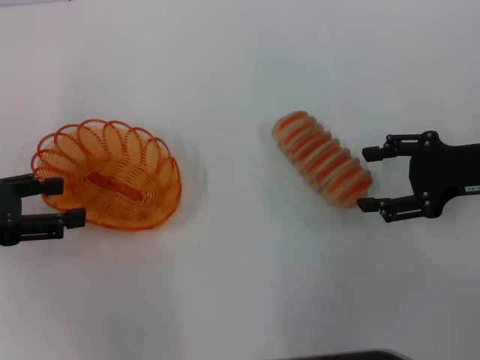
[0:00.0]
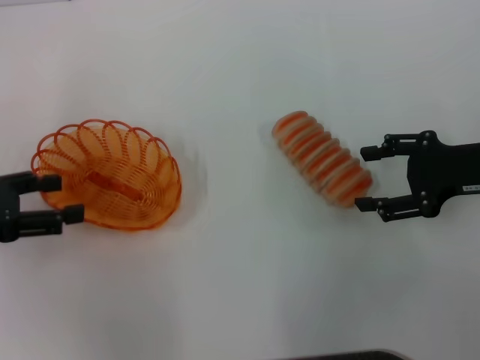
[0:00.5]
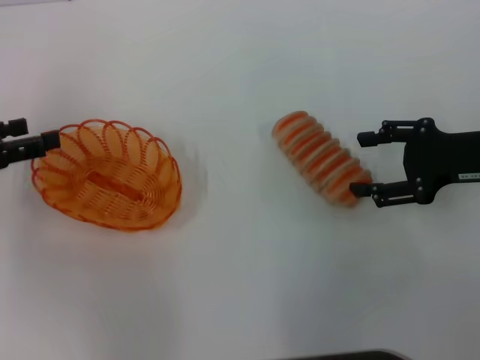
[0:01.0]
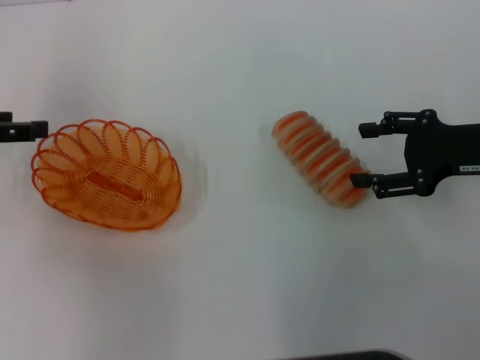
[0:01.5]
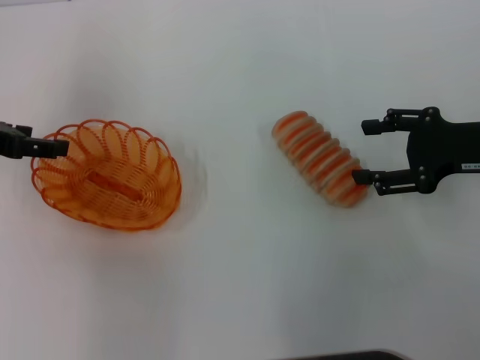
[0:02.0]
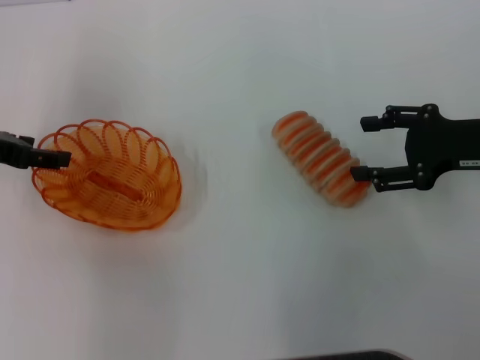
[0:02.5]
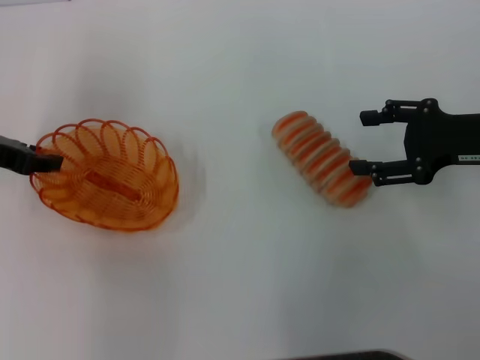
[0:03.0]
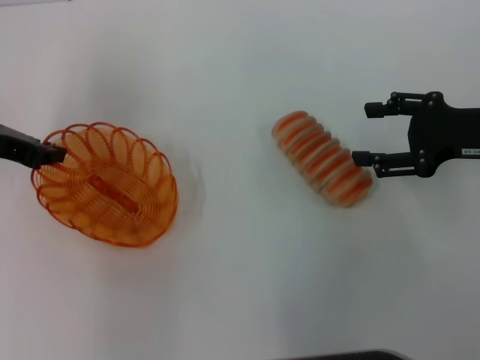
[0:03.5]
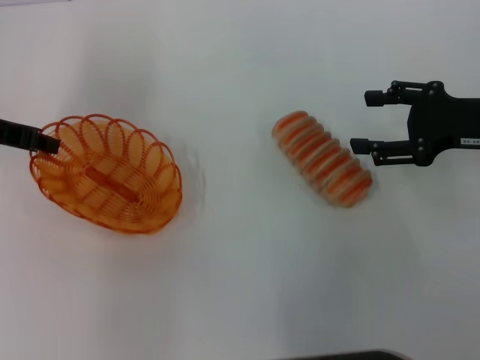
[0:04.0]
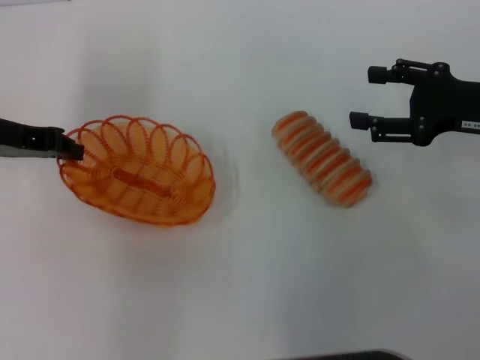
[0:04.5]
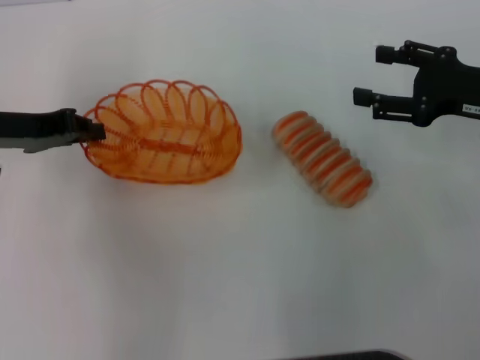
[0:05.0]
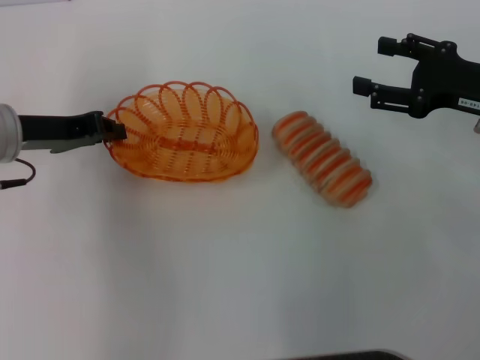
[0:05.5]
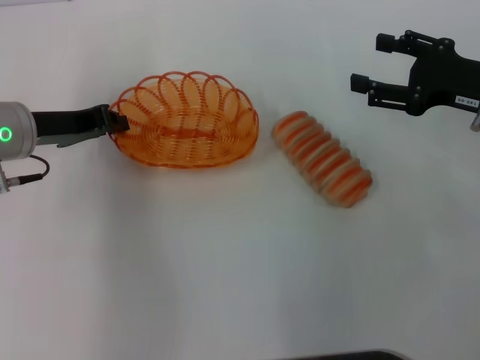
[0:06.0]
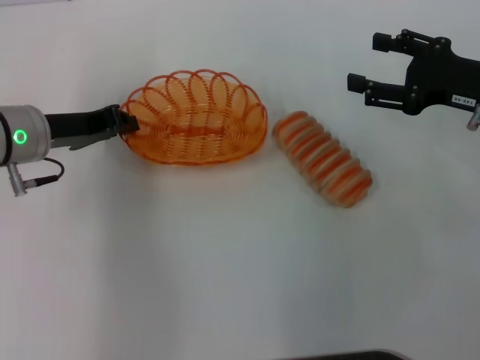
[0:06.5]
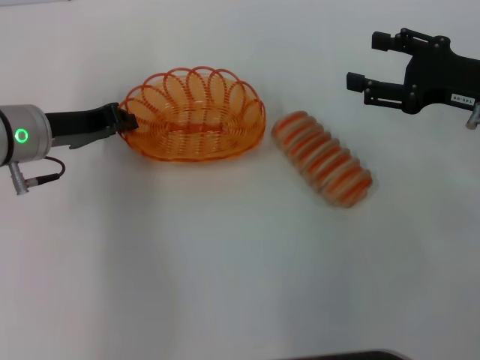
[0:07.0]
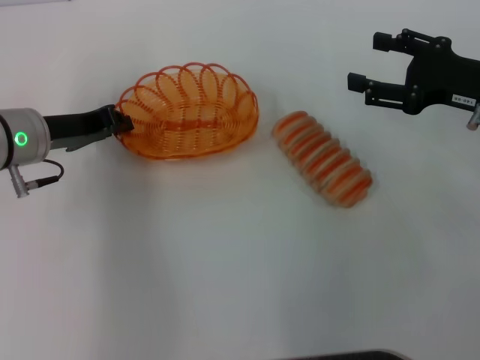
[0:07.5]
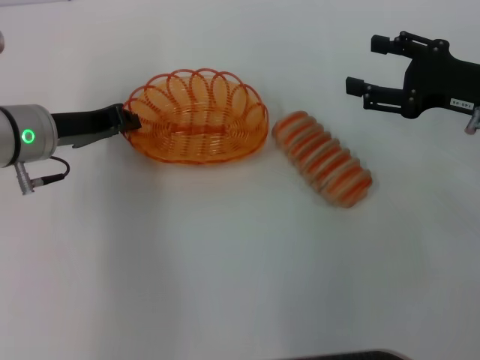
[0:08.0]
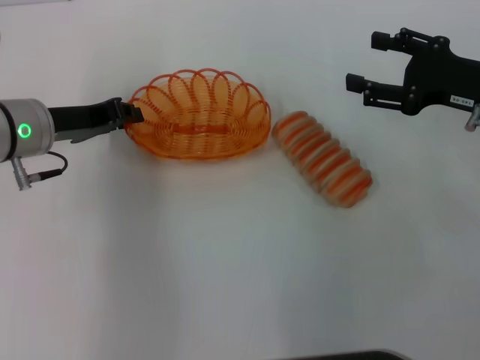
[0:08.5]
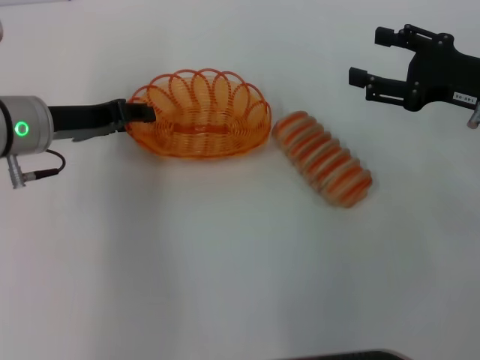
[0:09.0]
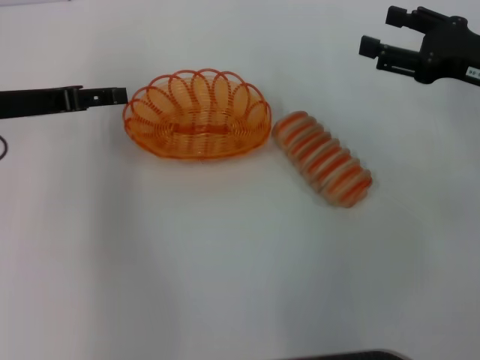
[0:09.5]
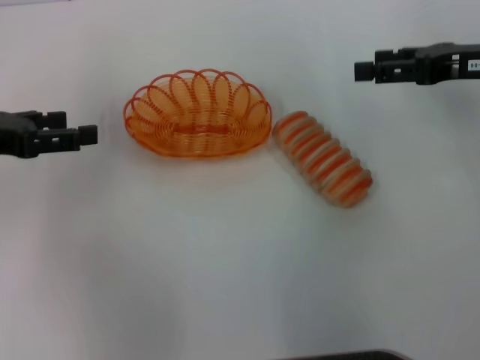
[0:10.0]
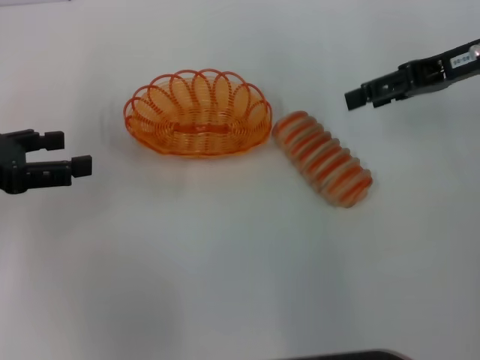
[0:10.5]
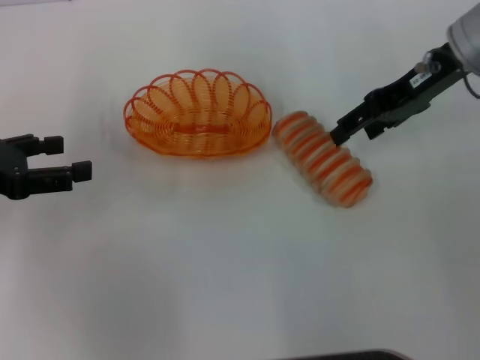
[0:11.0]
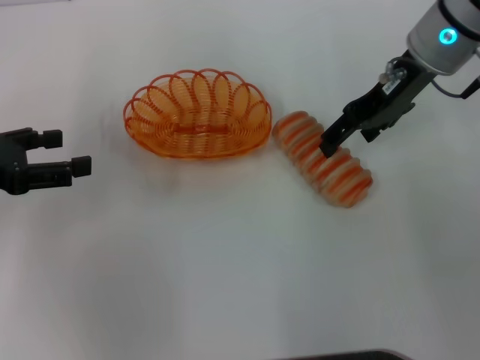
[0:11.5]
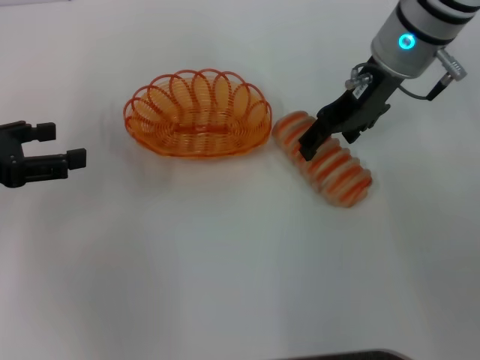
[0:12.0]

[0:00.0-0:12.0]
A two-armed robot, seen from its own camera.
Step, 0:00.0 to 0:03.5: Pick up the basket with the left gripper.
Step, 0:04.0 to 0:09.0: Place the basket in the center of view with the left gripper.
0:00.0 to 0:02.0: The left gripper goes approximately 10 cm forward.
0:02.0 to 0:04.0: The left gripper closes.
0:04.0 to 0:06.0: The left gripper travels to the right by about 5 cm.
0:06.0 to 0:08.0: The grippers move only a little.
0:08.0 to 0:10.0: The right gripper changes place by roughly 5 cm, while the left gripper heads to the left and upward, covering approximately 10 cm, and opens its fingers.
0:10.0 to 0:12.0: The right gripper shifts some 15 cm to the left and forward.

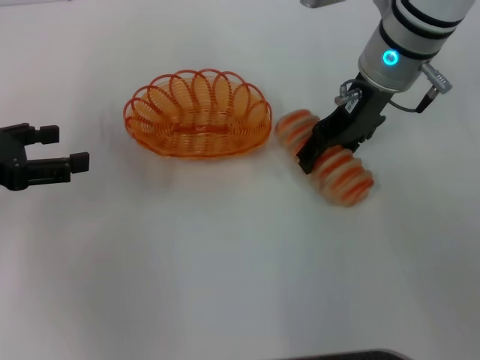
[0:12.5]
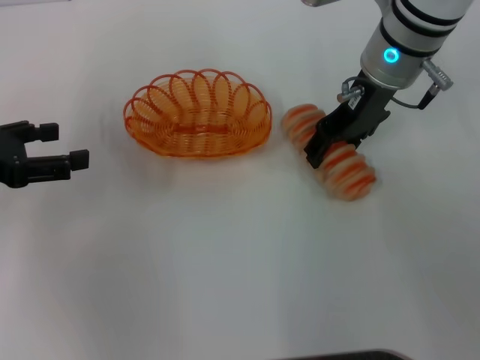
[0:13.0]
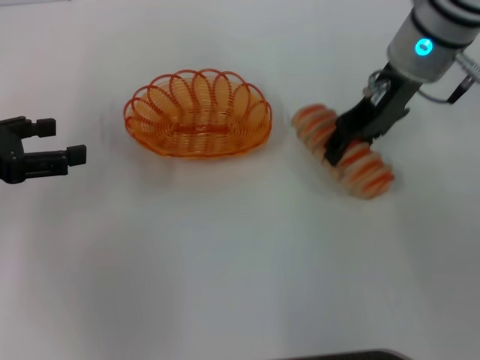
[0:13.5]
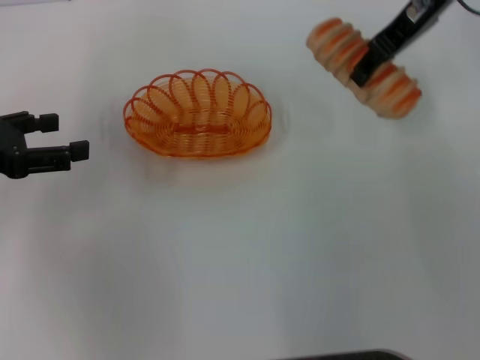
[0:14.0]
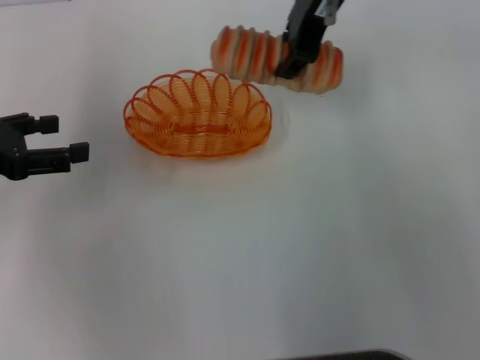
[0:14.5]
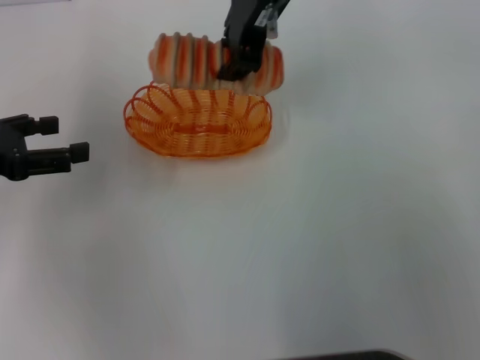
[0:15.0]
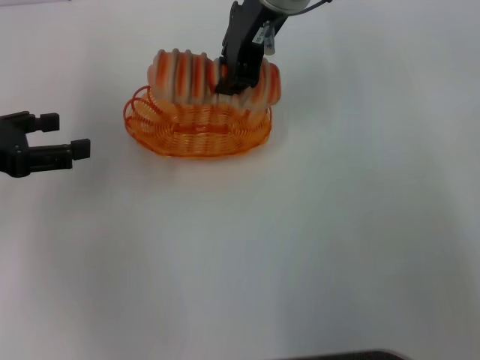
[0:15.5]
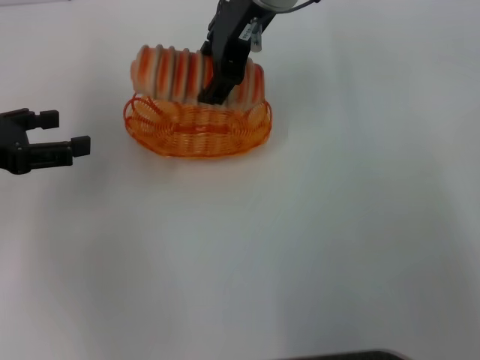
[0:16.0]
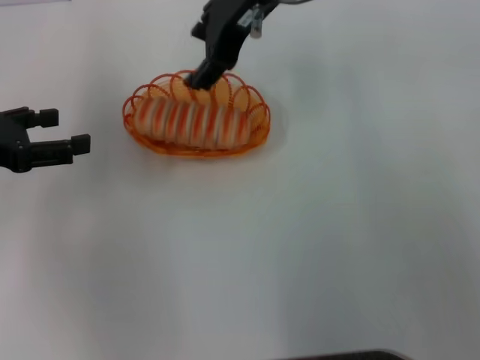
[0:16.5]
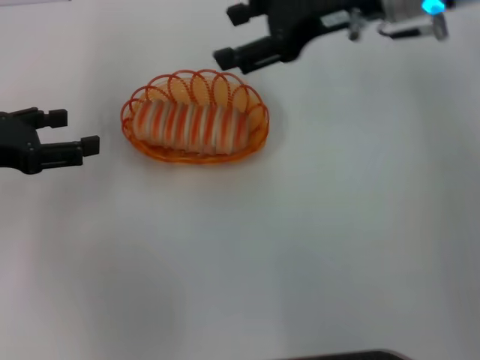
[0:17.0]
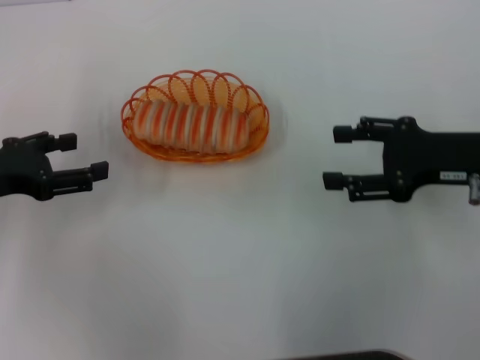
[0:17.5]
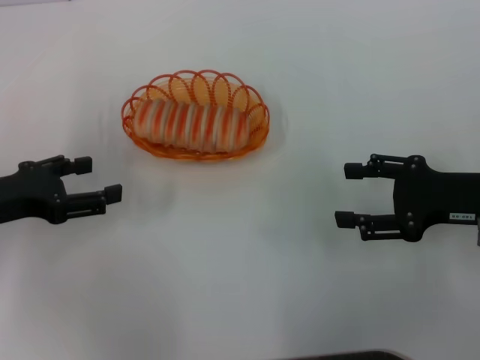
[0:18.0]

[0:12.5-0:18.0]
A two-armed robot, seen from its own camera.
Step, 0:14.0 to 0:16.0: Place the long bread into the basket with the right gripper.
0:12.5 to 0:14.5: The right gripper goes about 10 cm upward and to the left, and closes up.
0:14.5 to 0:16.0: The right gripper heads to the left, covering some 5 cm.
0:16.0 to 0:18.0: The right gripper moves to the right, backward and downward, approximately 35 cm. The left gripper is displaced downward by approximately 5 cm.

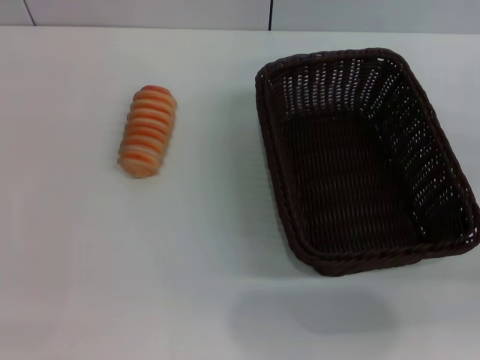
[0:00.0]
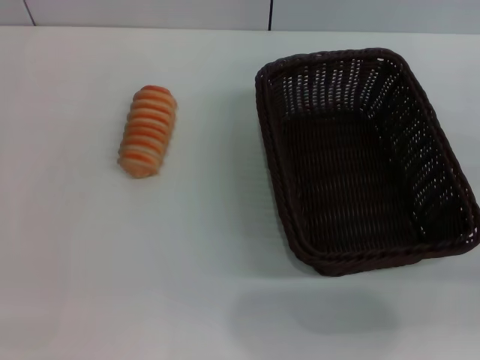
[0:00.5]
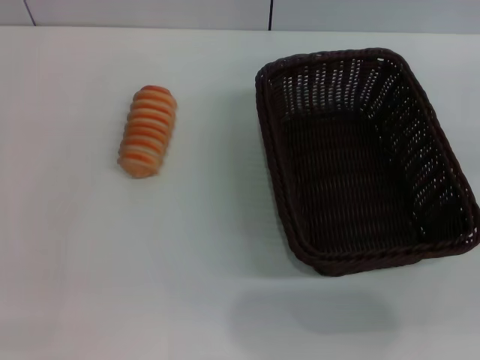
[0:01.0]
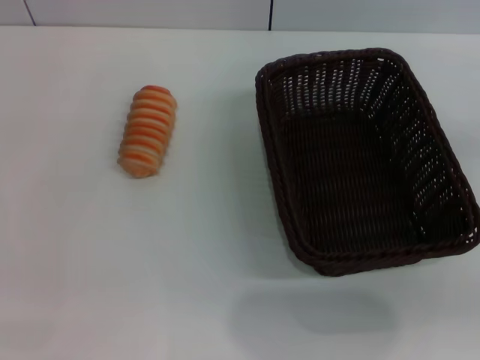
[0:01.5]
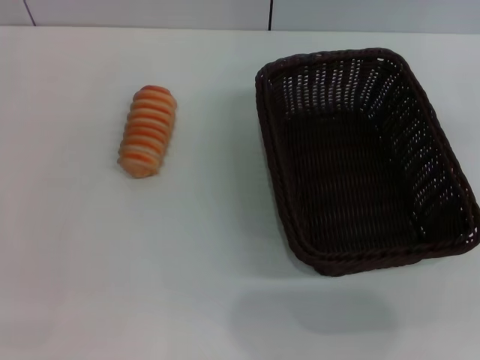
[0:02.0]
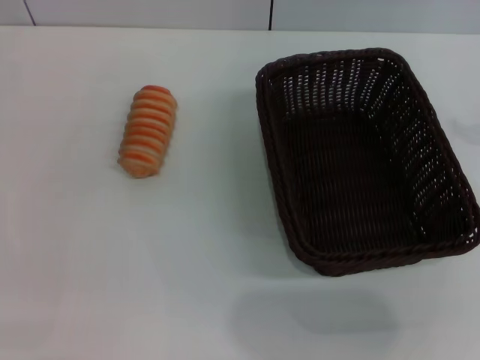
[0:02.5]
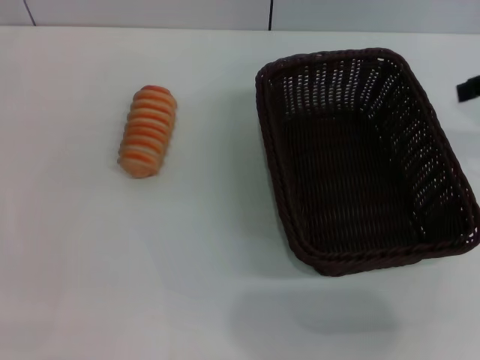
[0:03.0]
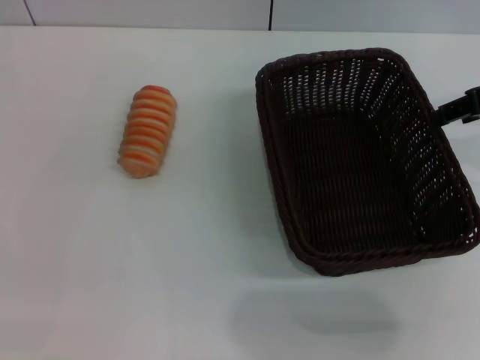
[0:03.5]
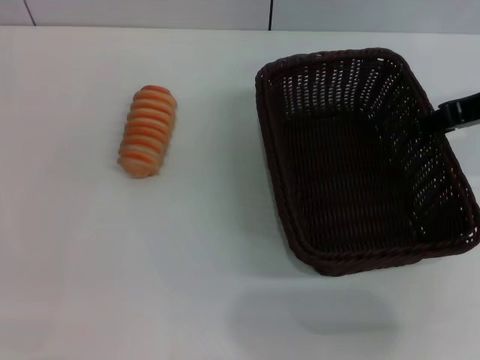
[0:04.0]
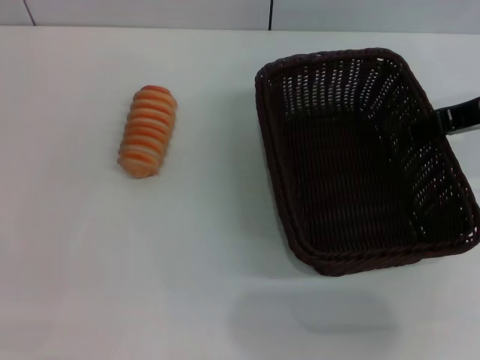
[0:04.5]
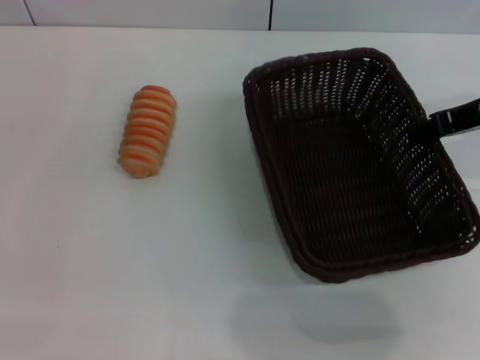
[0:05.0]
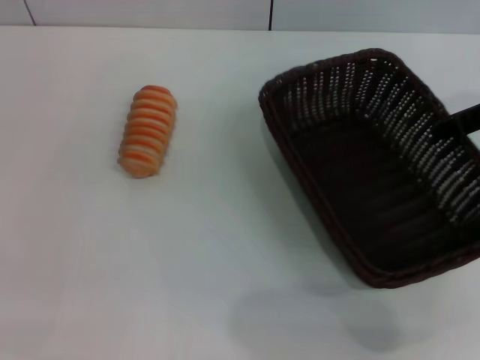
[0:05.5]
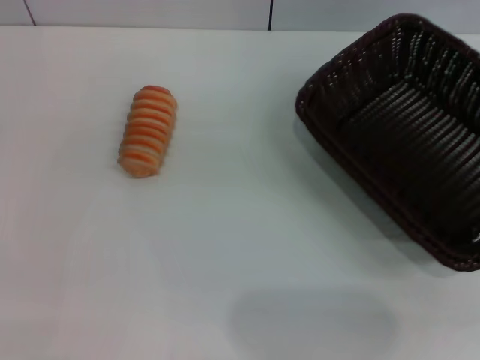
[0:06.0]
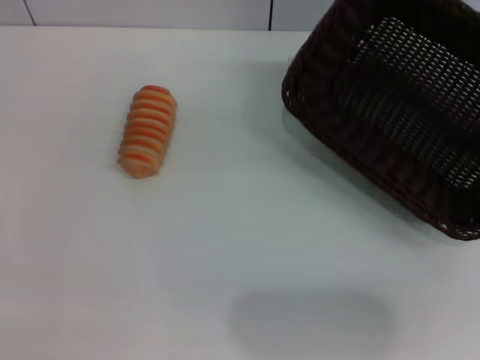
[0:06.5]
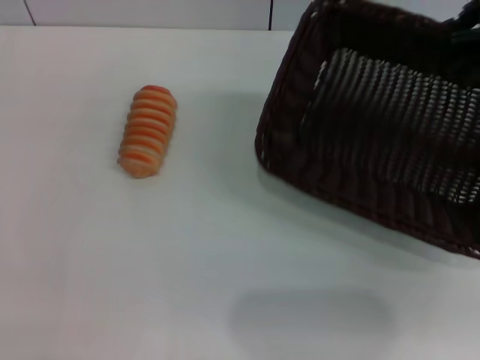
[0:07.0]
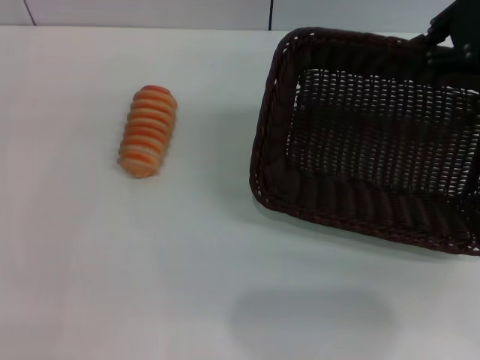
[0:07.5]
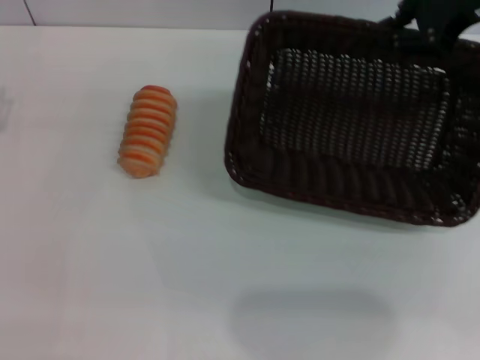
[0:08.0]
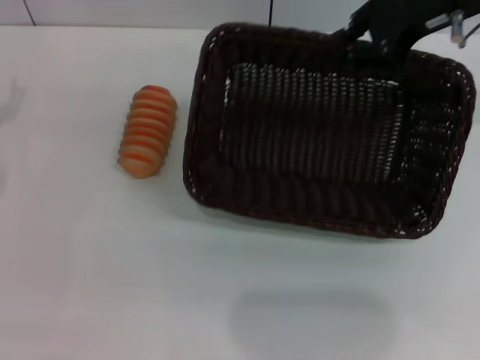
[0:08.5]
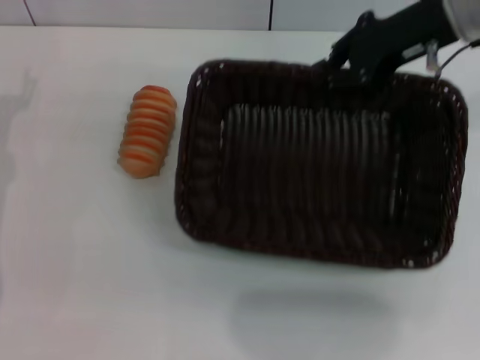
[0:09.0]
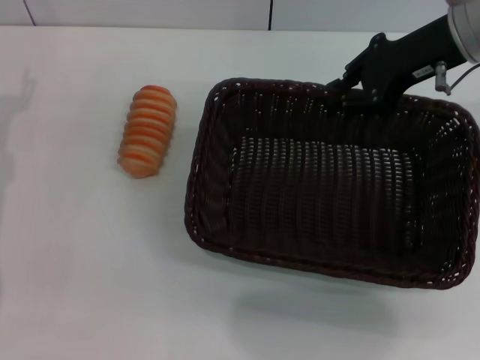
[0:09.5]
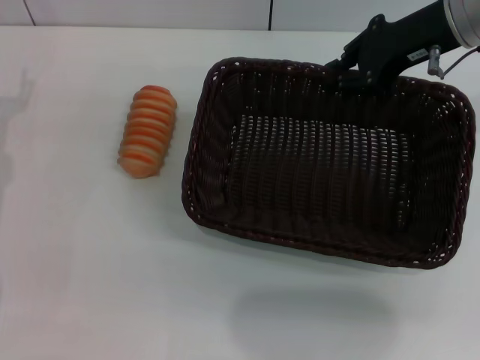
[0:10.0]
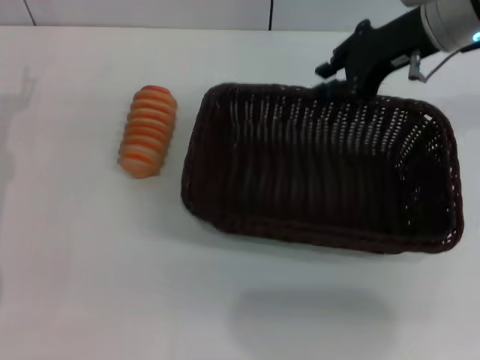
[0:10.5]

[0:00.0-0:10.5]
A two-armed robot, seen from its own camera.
Step, 0:00.0 to 0:06.5: Pick up the dark basket with the right gripper.
0:02.0 to 0:04.0: The right gripper shifts about 15 cm to the left, downward and forward.
0:04.0 to 0:06.5: The right gripper moves upward, about 5 cm, and closes up.
0:06.5 to 0:08.5: The left gripper ends up some 5 cm from where it was, while the right gripper heads to the left, covering approximately 10 cm.
0:08.5 to 0:10.5: The grippers make only small movements.
